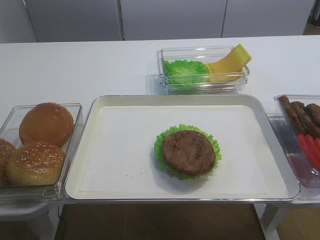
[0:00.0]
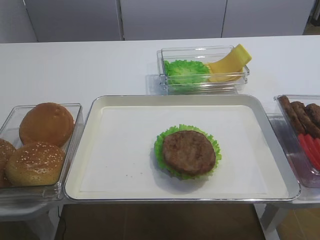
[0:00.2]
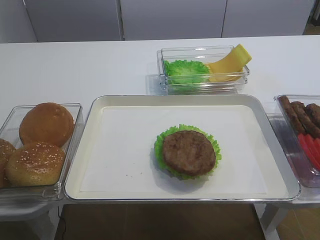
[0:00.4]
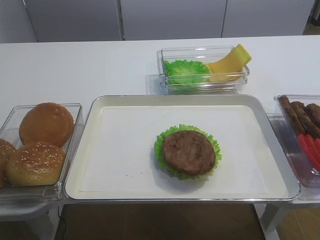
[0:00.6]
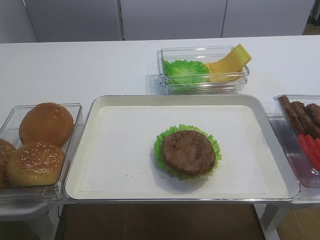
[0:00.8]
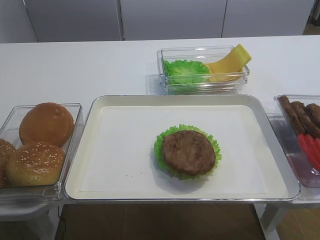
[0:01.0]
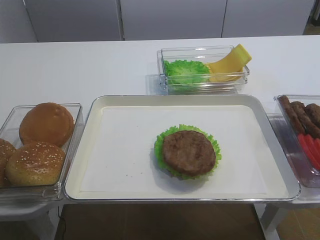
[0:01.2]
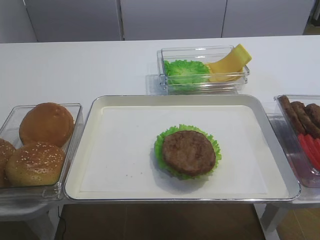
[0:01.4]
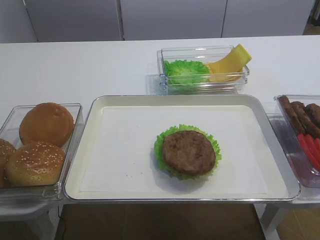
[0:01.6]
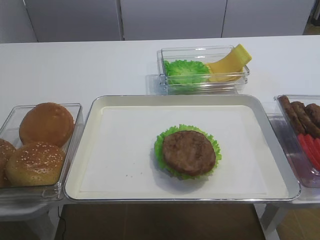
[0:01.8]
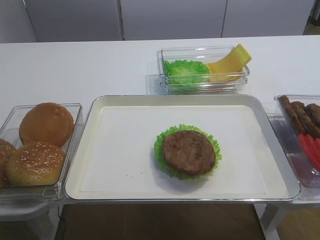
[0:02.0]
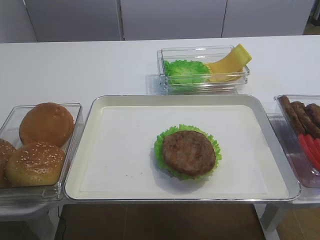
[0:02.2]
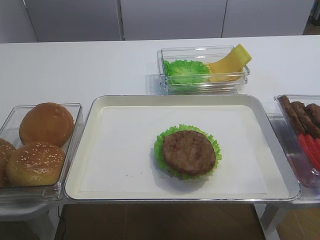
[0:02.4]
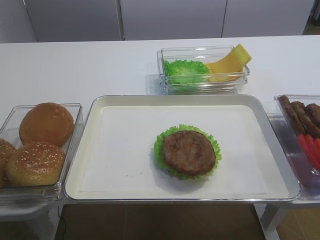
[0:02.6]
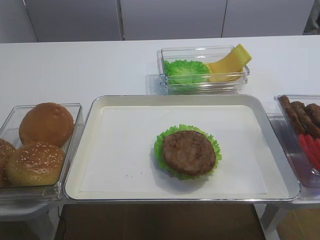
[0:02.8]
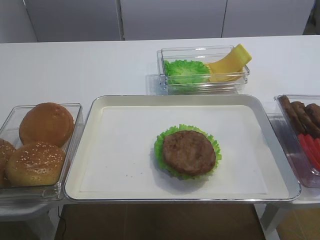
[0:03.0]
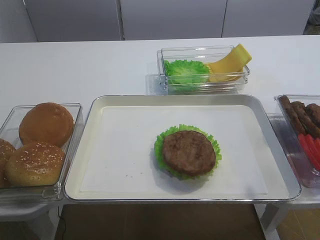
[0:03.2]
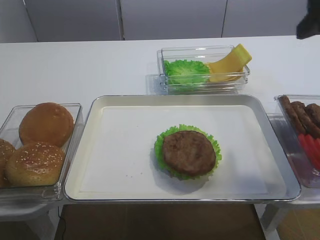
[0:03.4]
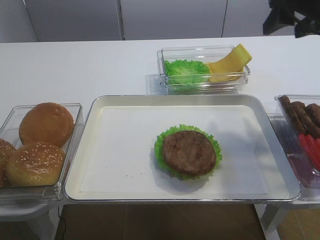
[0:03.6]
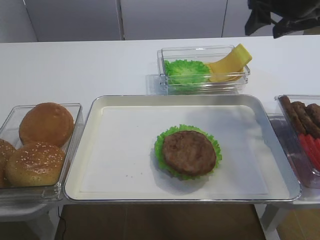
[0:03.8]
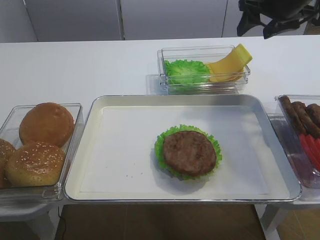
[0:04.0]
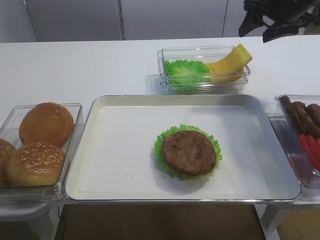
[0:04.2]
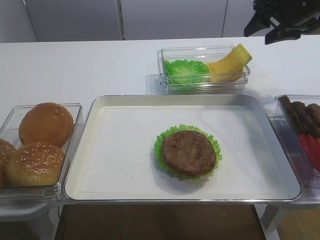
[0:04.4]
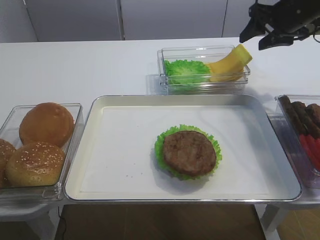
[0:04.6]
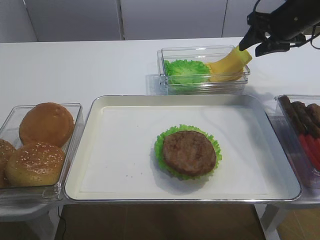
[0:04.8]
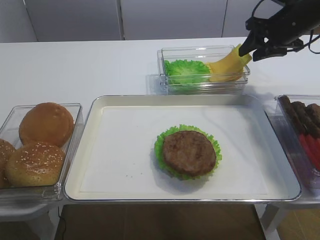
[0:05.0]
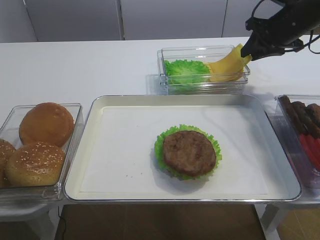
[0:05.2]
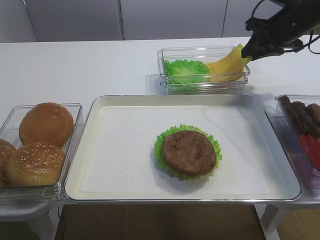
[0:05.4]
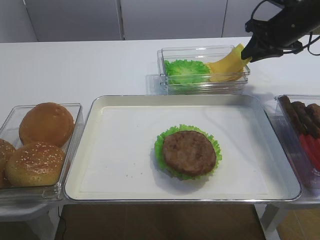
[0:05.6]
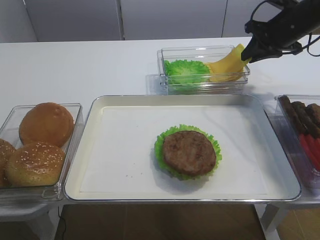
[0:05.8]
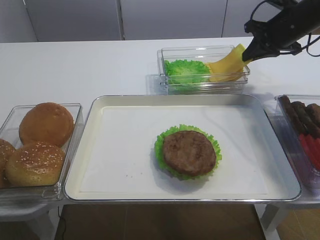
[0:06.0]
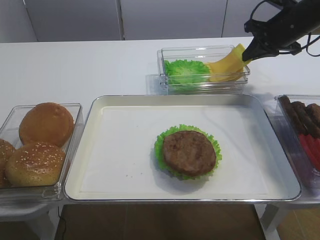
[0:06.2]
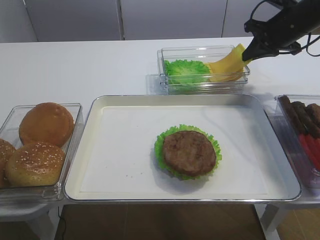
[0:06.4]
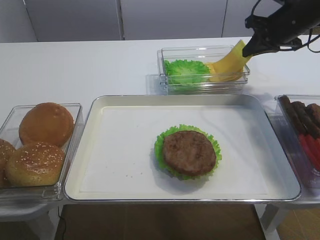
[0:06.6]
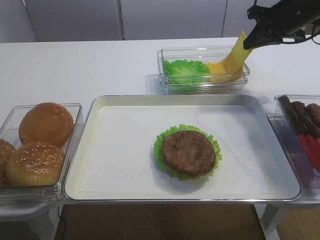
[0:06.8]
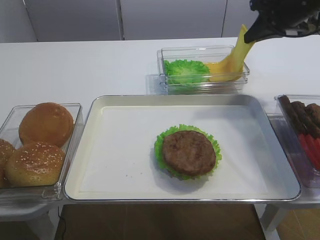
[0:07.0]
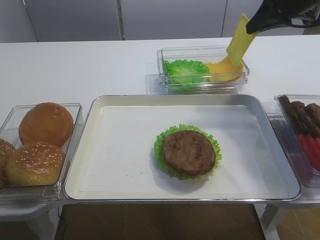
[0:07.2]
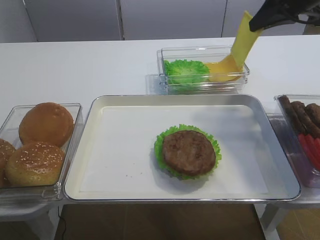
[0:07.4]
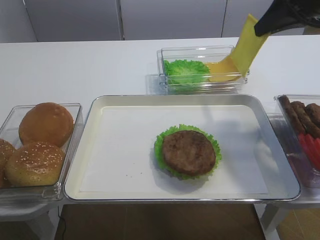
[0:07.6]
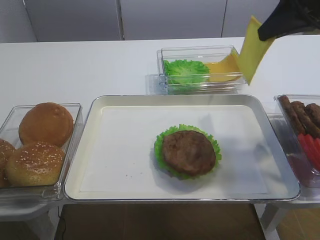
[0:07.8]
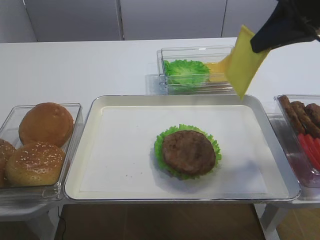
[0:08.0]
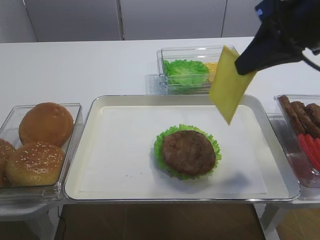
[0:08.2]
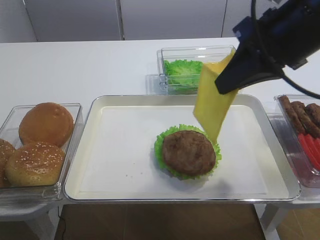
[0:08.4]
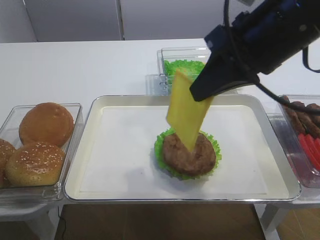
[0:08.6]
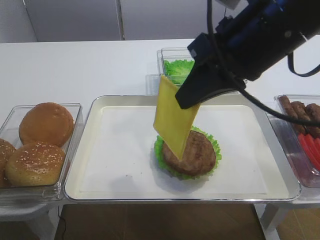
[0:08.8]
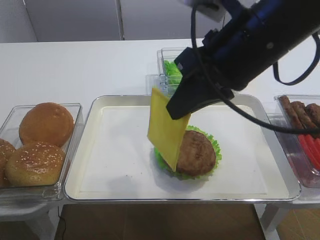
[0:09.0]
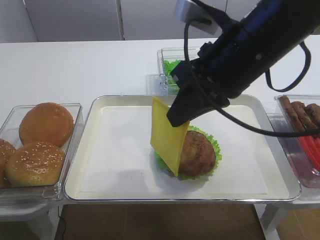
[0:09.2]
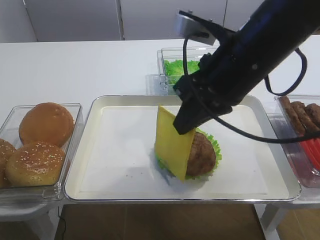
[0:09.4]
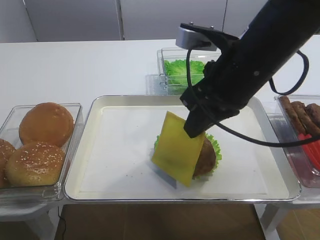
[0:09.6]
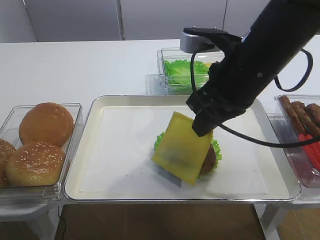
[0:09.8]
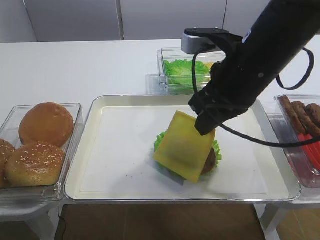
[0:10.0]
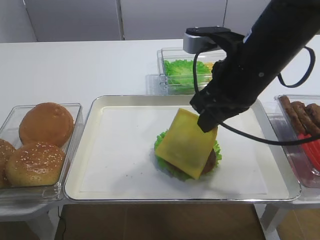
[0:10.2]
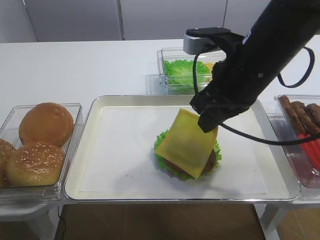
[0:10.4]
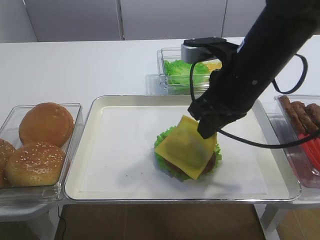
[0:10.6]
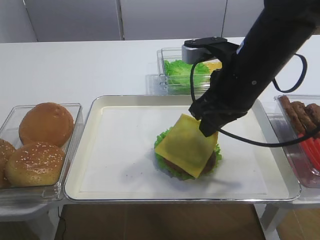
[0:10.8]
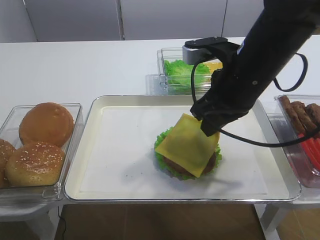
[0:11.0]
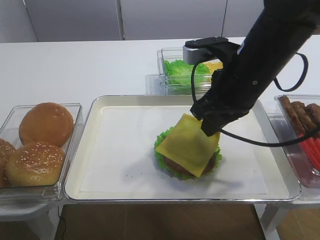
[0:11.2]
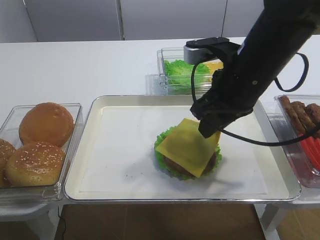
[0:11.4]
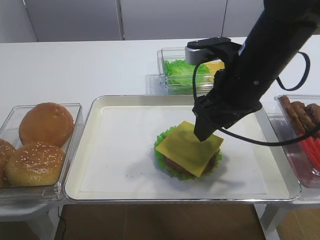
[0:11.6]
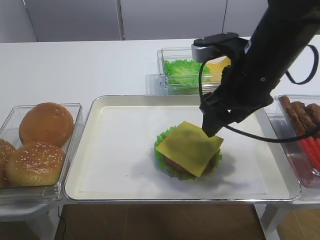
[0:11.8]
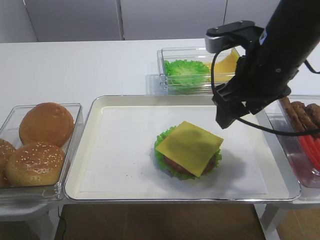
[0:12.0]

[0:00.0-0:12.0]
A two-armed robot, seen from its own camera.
Step, 0:00.0 to 0:07.2: Pick up the cheese slice with the right gripper.
Step, 0:07.4 to 0:11.4: Place the cheese slice on the cutlet with the right gripper.
0:03.0 to 0:04.4: The right gripper is displaced forward by roughly 35 cm.
0:04.4 to 0:06.0: The right gripper closes up.
0:06.0 to 0:07.6: The right gripper is displaced upward and backward by roughly 15 cm.
0:07.6 to 0:09.0: The right gripper goes roughly 20 cm backward and to the left.
0:09.0 to 0:10.4: The right gripper moves downward, some 5 cm.
0:10.4 to 0:12.0: The right gripper opens its fingers.

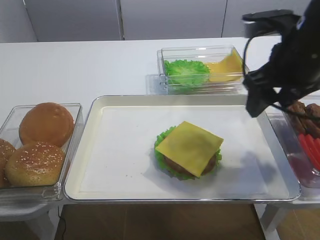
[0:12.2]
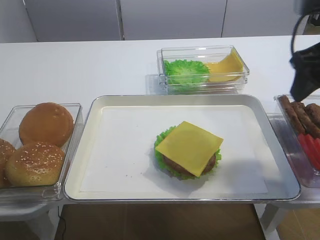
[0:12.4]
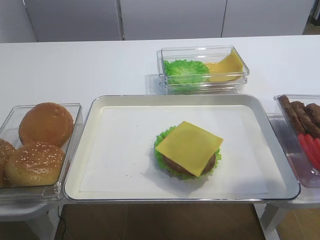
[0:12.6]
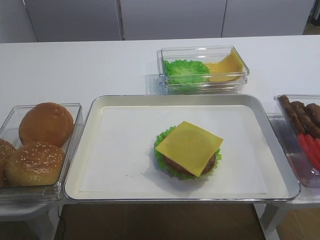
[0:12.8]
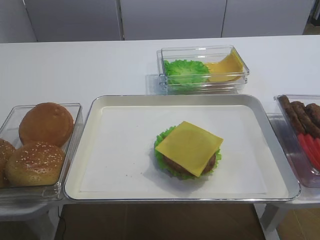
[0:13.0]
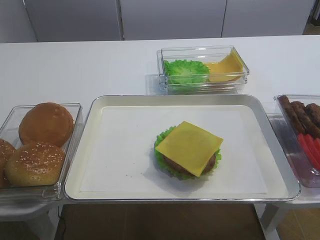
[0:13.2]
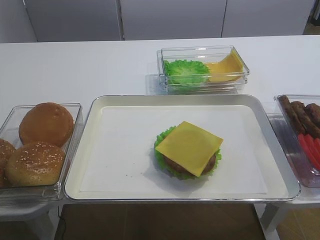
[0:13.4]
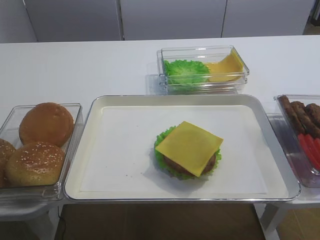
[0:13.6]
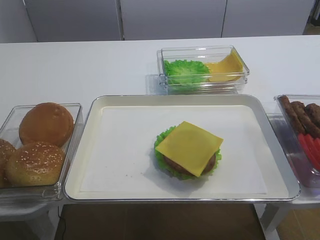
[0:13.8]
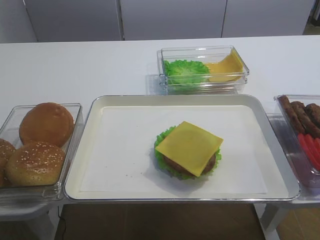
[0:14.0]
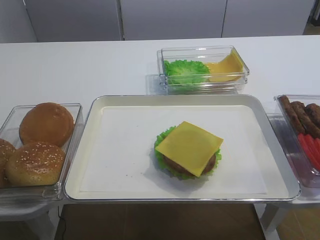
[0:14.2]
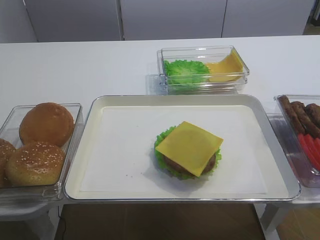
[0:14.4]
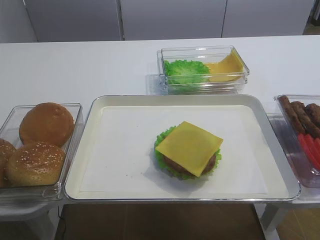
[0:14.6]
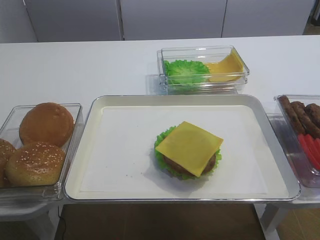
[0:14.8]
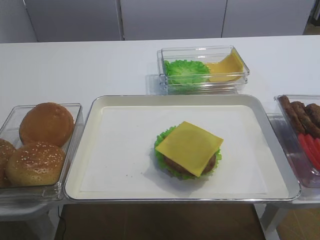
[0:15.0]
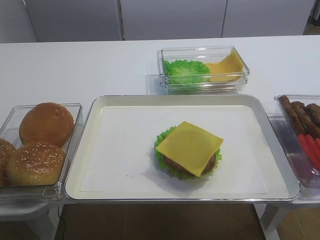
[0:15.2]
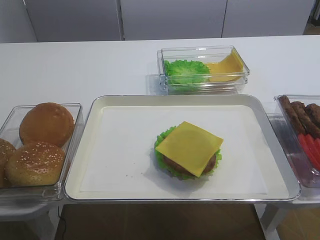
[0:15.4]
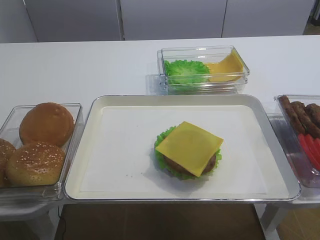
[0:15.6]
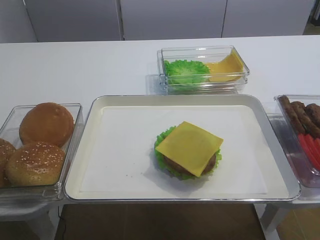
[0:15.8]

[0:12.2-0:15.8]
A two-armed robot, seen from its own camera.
0:12.2 to 0:14.0: The right gripper travels backward and to the right by about 25 cm.

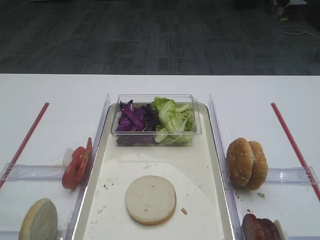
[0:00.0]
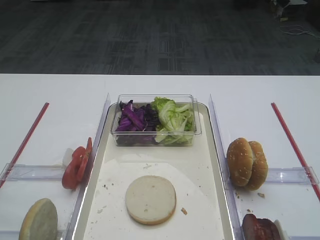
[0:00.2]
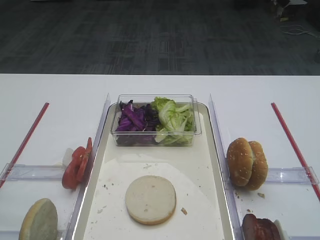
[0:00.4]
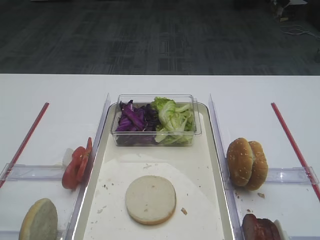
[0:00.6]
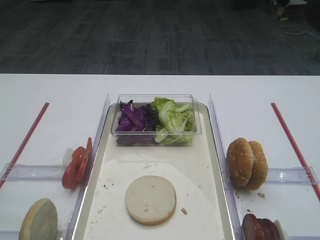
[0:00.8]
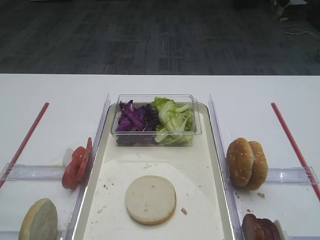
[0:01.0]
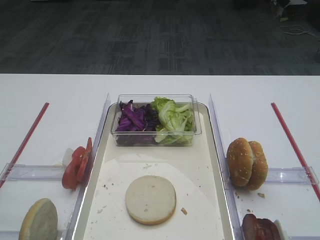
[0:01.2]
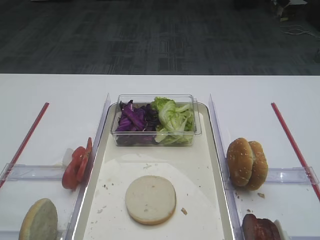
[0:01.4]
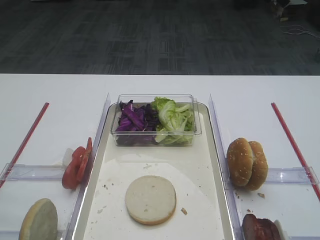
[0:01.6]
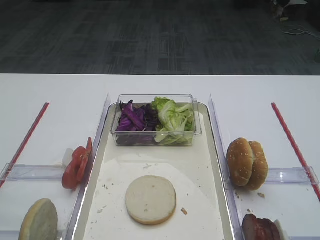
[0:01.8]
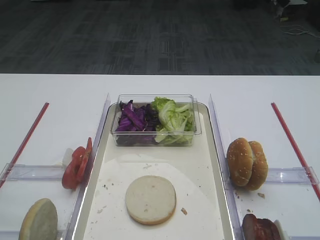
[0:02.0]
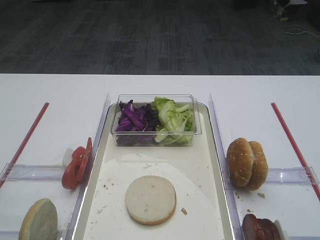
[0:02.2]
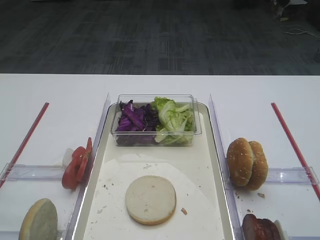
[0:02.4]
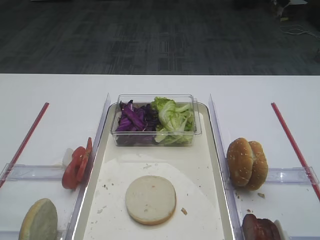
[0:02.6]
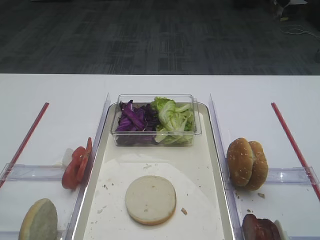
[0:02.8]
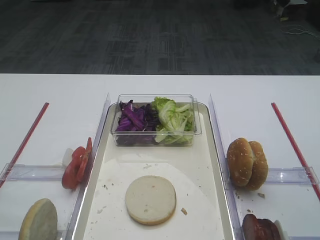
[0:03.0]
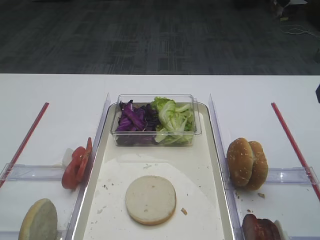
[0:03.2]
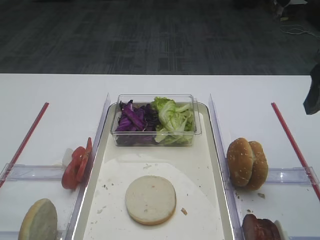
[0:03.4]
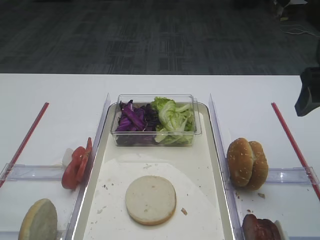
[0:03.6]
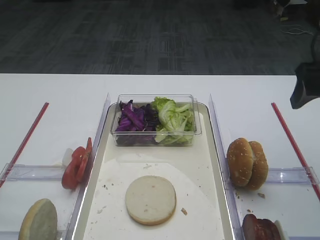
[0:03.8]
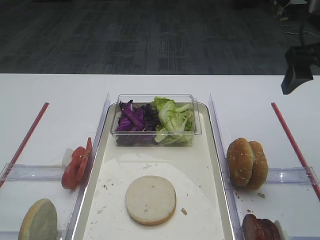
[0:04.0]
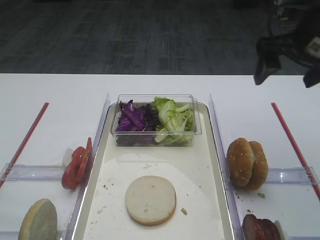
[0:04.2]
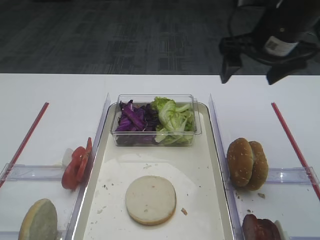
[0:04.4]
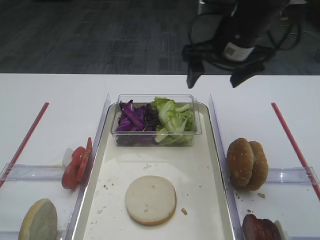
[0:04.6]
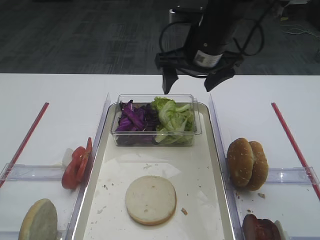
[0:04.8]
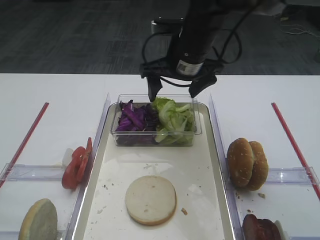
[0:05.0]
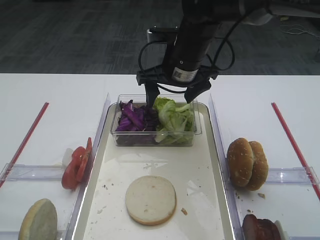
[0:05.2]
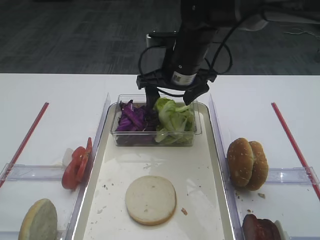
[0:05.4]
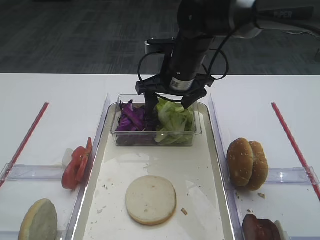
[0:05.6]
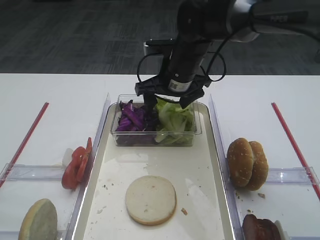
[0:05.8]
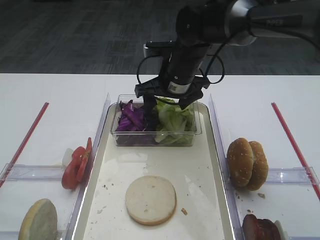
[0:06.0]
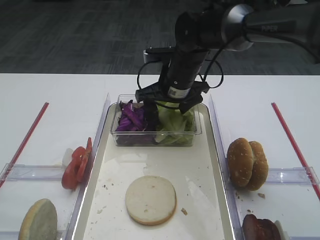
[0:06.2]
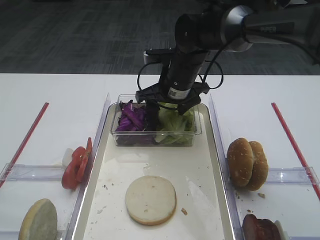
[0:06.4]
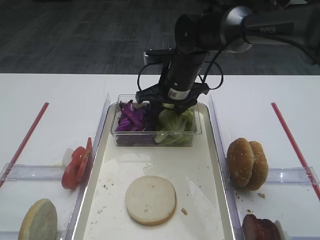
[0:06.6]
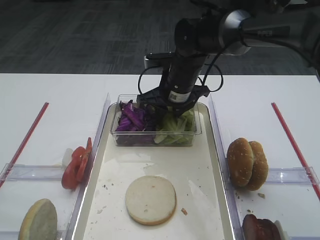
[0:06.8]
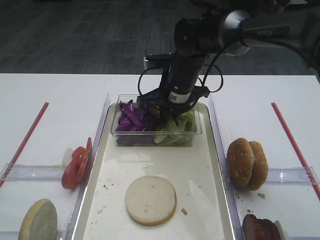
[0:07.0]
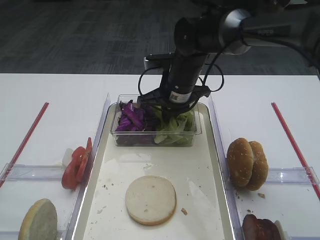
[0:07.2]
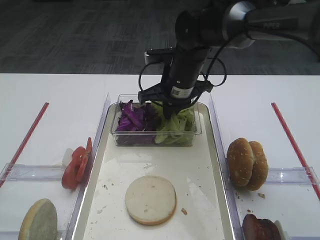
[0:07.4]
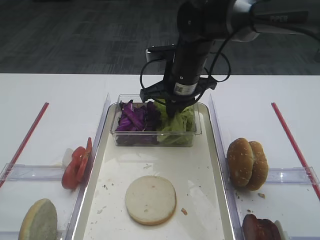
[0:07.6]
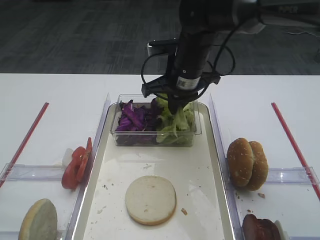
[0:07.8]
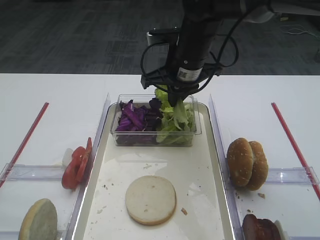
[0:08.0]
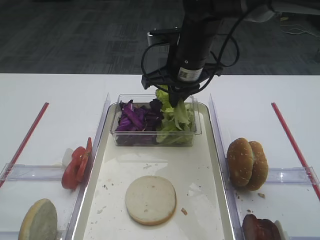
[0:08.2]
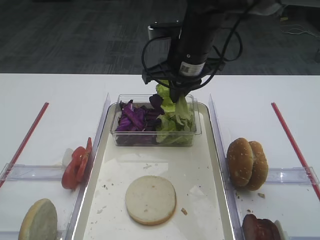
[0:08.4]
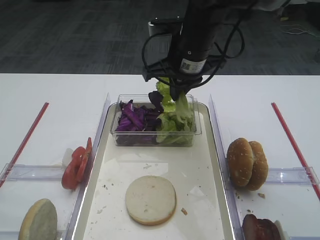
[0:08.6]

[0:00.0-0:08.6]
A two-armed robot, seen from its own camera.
0:02.8 to 0:04.4: The right gripper heads forward, covering roughly 20 cm.
0:04.4 to 0:05.8: The right gripper moves to the left and downward, some 20 cm.
0:05.8 to 0:07.2: The right gripper closes up.
0:07.2 to 0:08.6: The right gripper goes roughly 10 cm upward.
